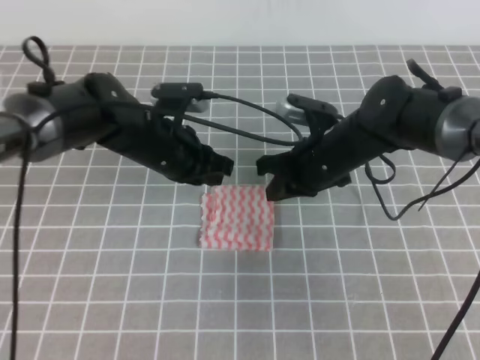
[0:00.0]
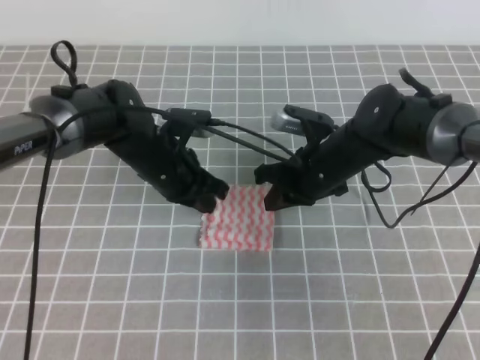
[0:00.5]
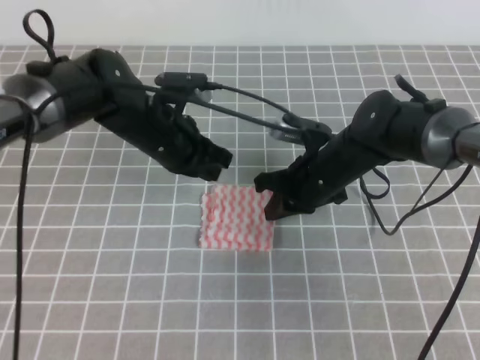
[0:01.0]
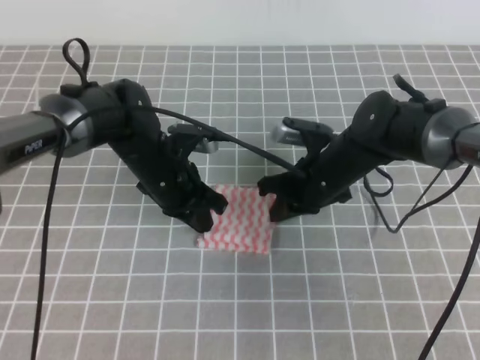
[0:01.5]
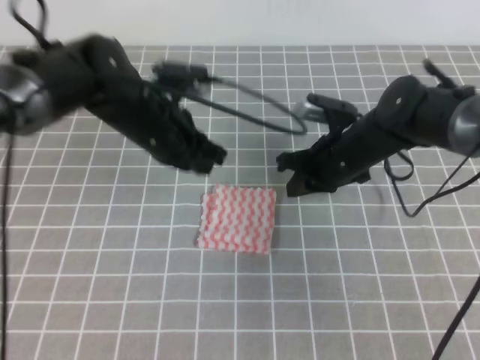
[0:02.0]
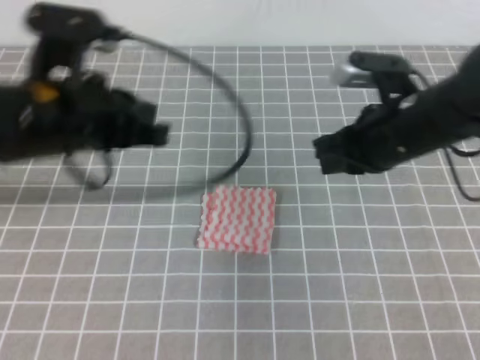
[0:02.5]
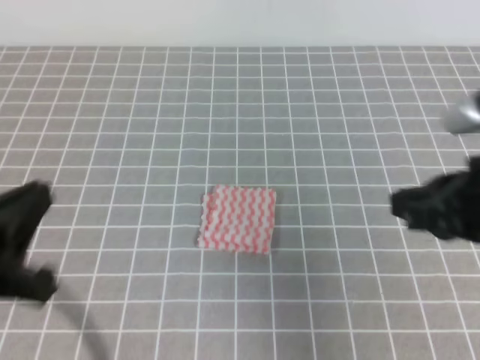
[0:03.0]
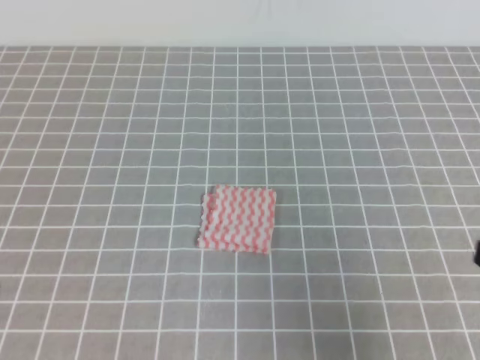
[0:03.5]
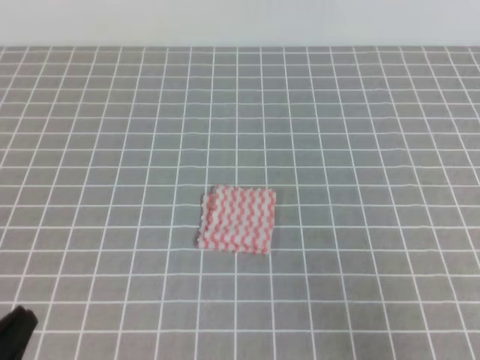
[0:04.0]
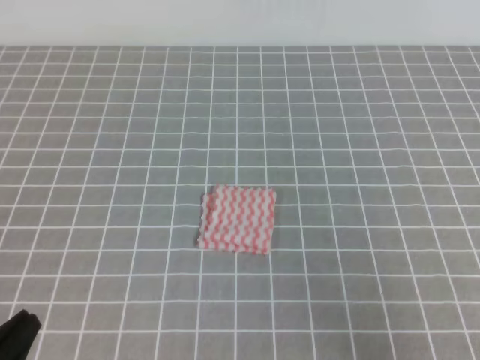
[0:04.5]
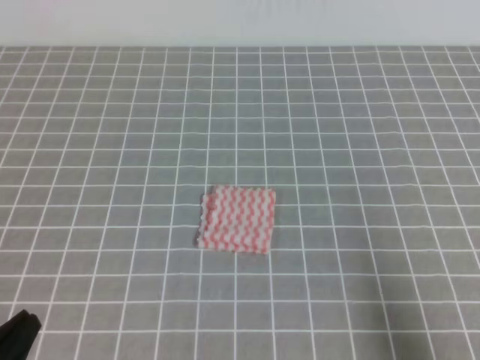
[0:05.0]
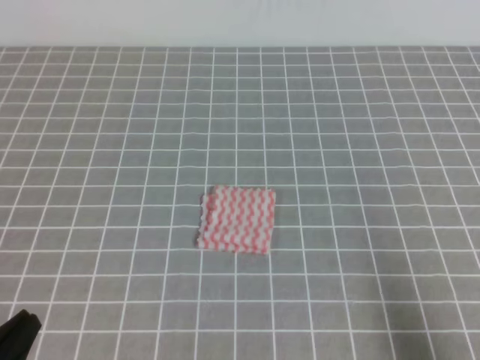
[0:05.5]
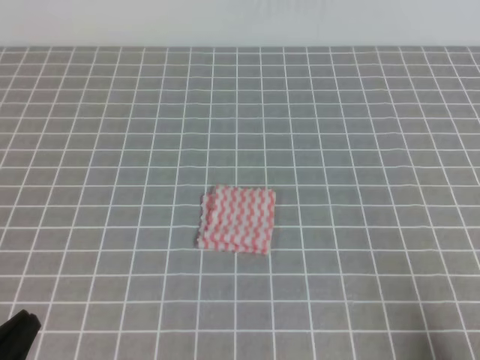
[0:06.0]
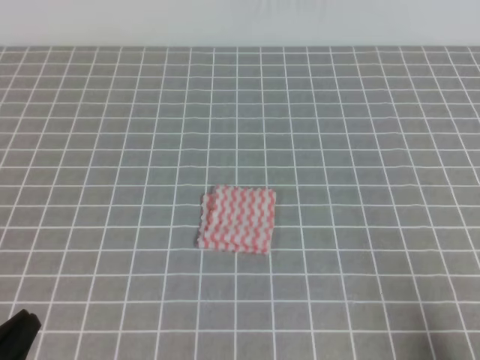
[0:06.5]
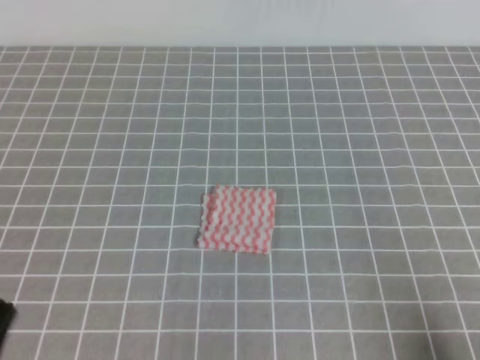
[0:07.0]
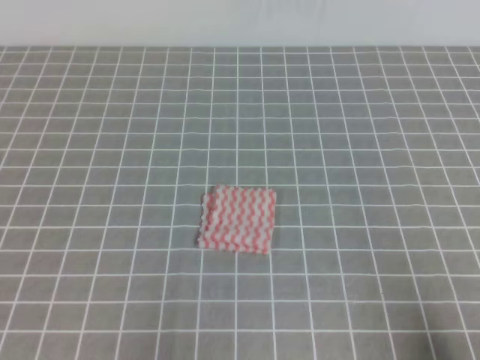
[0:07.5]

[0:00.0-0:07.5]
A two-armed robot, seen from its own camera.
Step, 0:00.0 to 0:07.5: Fold the towel.
0:02.0 to 0:04.0: The right gripper heads backward and to the right, covering some 35 cm. Meanwhile the left gripper goes about 35 cm backward and to the left.
0:04.0 to 0:05.5: The right gripper shifts roughly 5 cm downward.
